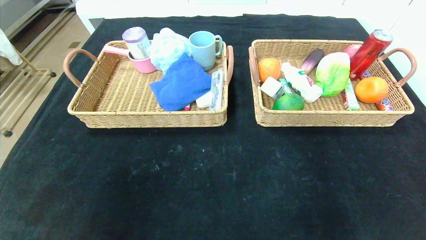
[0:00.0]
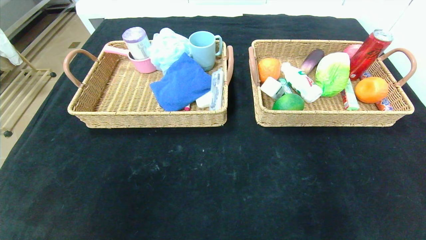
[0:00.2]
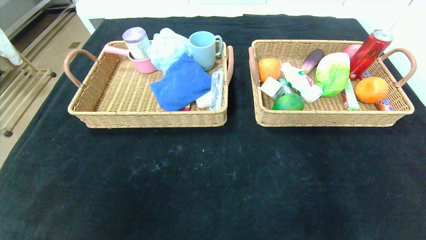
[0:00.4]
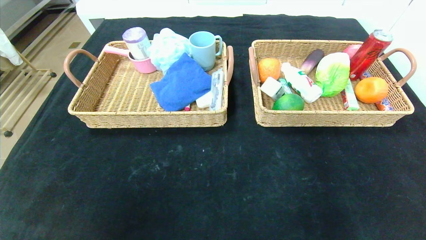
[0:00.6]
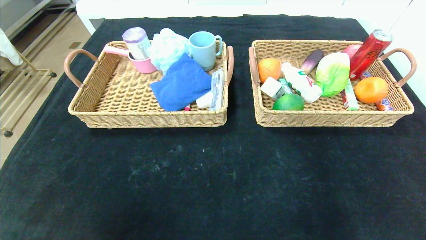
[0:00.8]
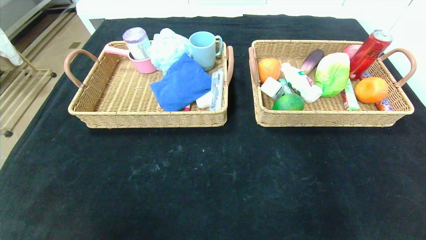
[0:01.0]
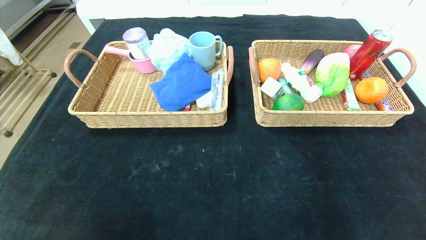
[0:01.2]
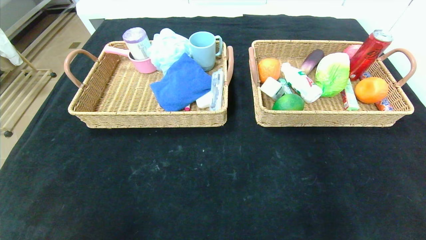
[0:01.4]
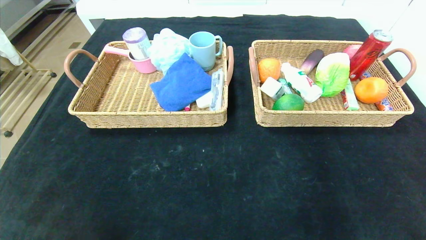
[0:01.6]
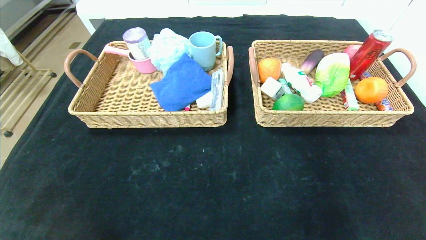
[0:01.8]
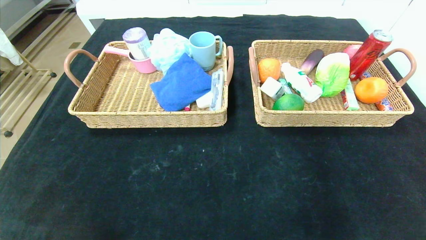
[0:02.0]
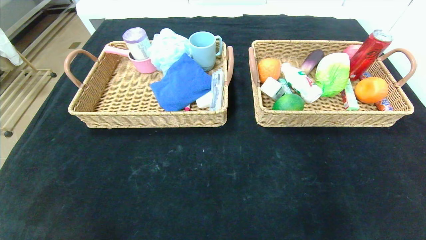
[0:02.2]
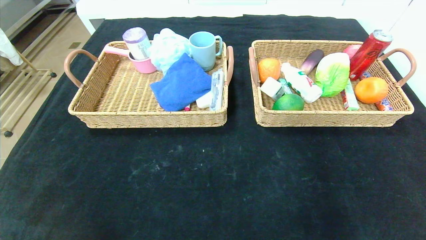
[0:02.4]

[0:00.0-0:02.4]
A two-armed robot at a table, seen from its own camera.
0:00.0 to 0:01.2: The left gripper is displaced downward and backward by roughly 10 cm.

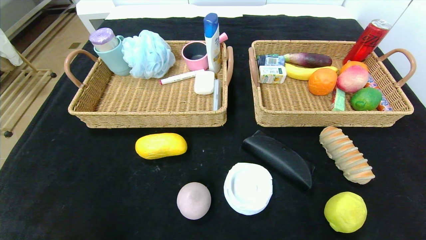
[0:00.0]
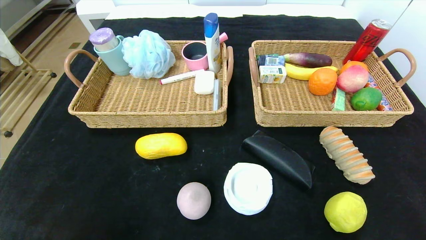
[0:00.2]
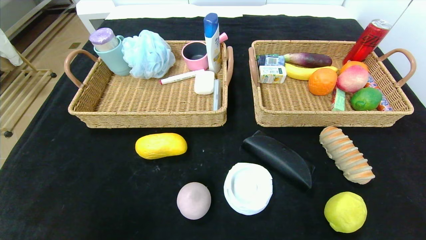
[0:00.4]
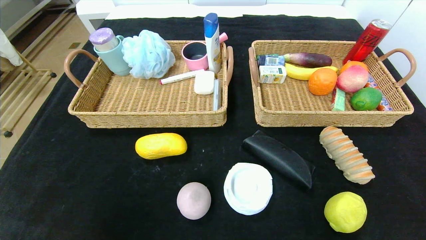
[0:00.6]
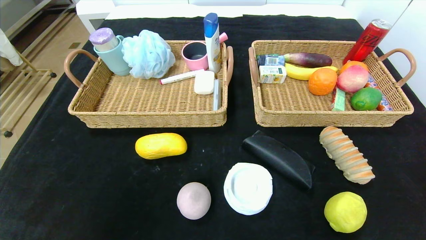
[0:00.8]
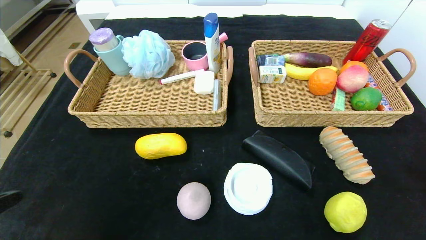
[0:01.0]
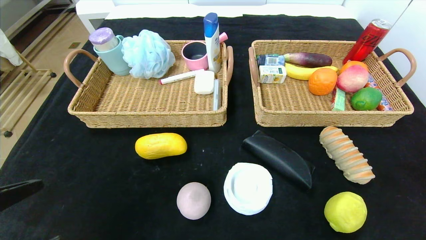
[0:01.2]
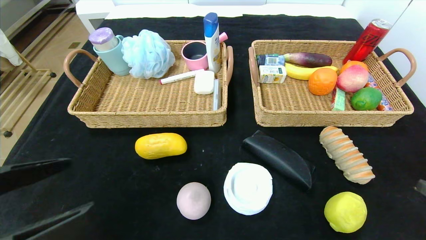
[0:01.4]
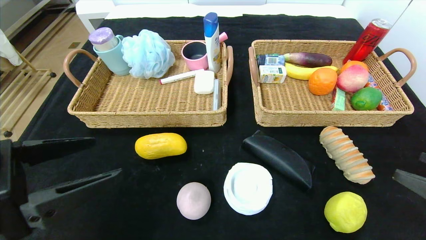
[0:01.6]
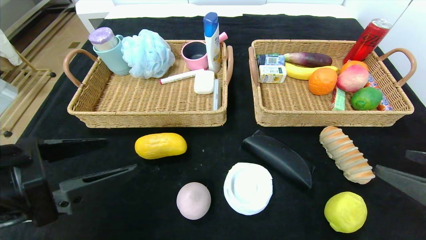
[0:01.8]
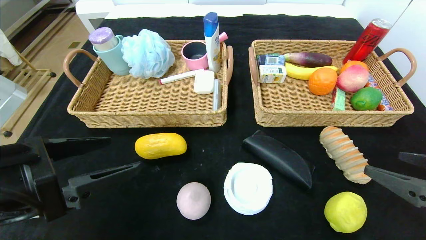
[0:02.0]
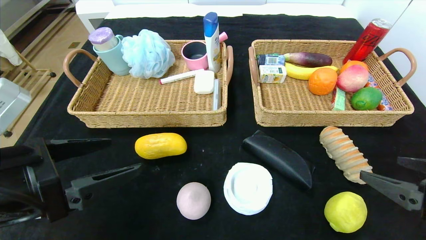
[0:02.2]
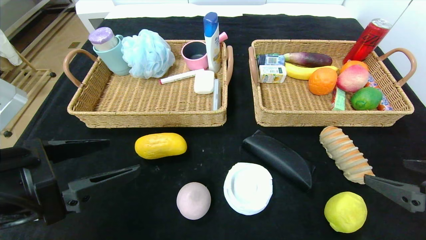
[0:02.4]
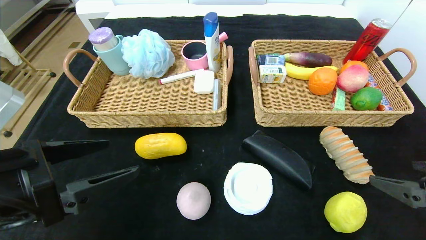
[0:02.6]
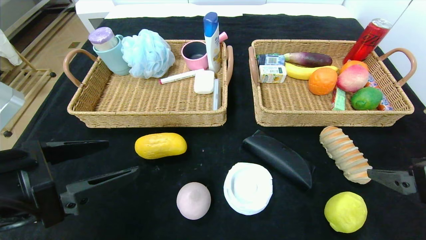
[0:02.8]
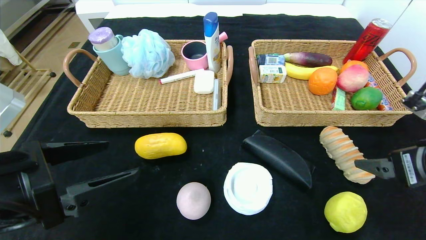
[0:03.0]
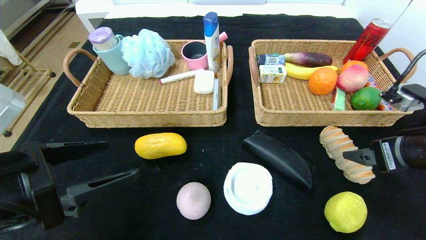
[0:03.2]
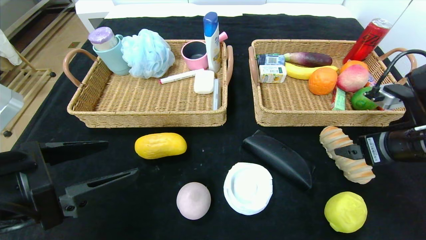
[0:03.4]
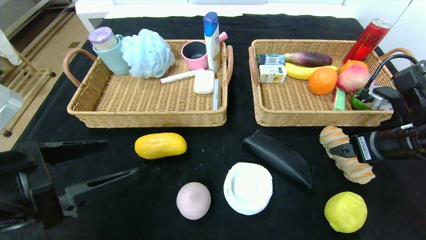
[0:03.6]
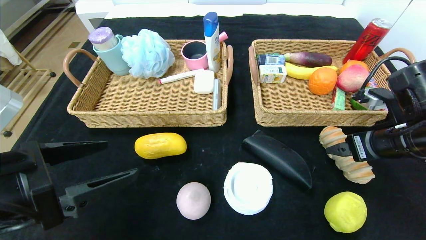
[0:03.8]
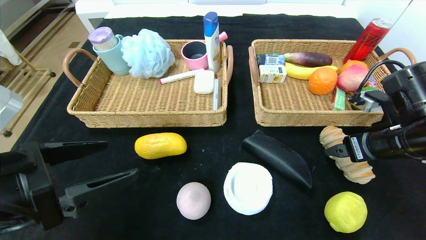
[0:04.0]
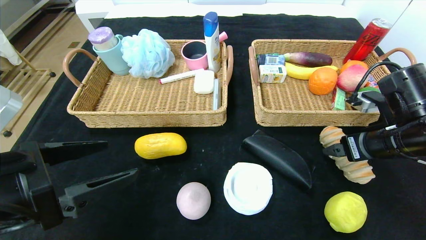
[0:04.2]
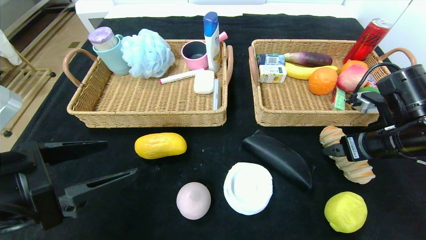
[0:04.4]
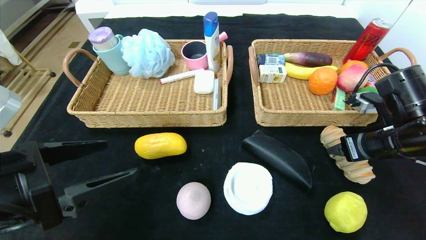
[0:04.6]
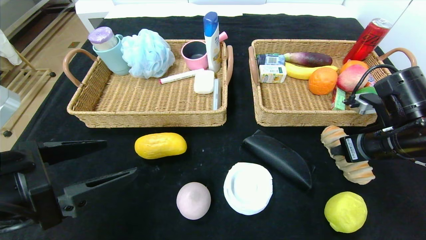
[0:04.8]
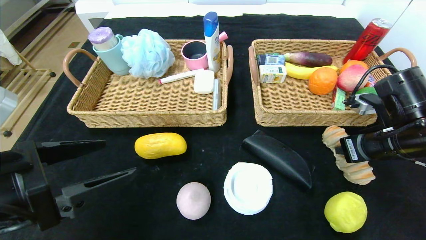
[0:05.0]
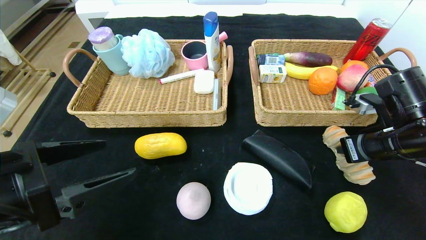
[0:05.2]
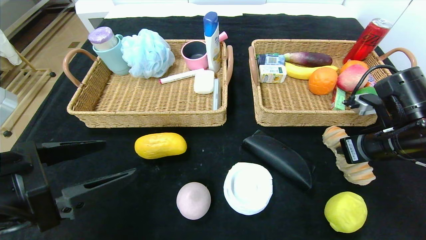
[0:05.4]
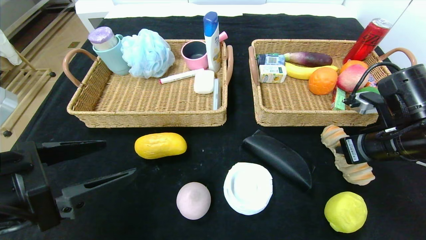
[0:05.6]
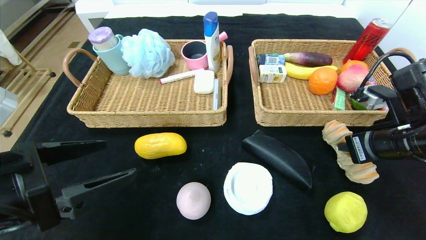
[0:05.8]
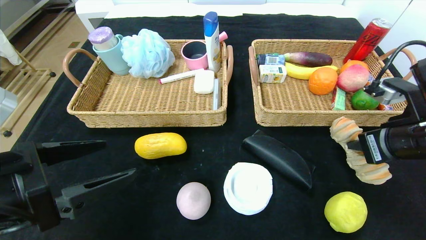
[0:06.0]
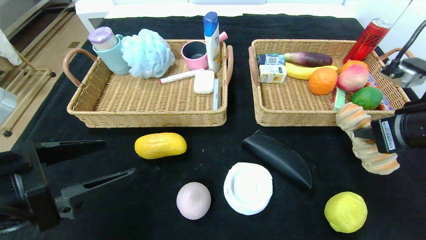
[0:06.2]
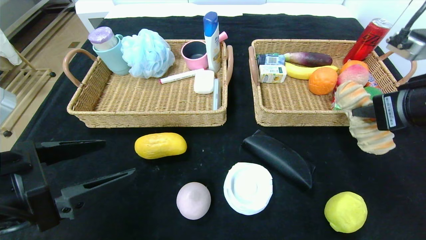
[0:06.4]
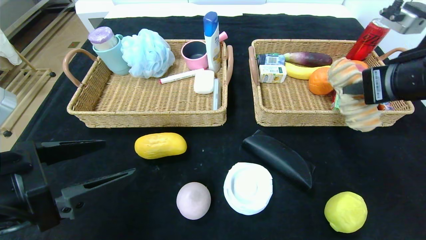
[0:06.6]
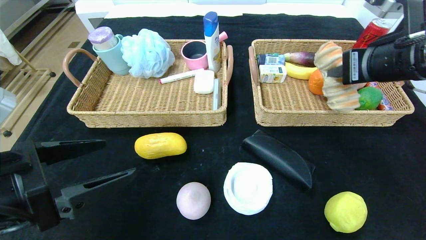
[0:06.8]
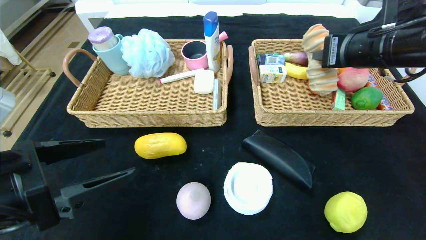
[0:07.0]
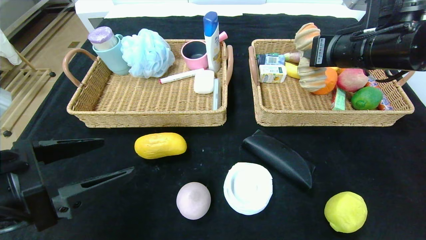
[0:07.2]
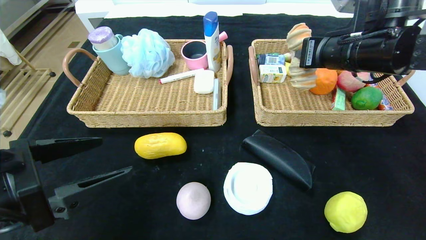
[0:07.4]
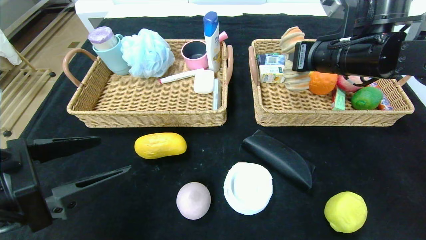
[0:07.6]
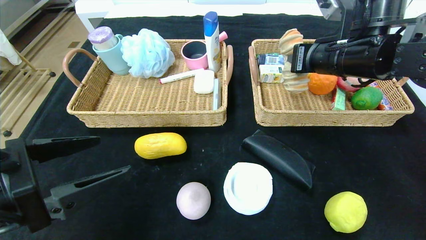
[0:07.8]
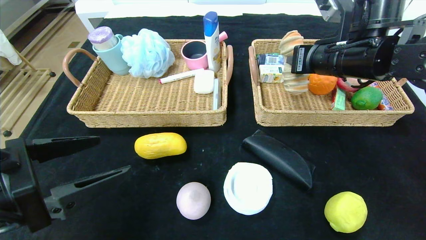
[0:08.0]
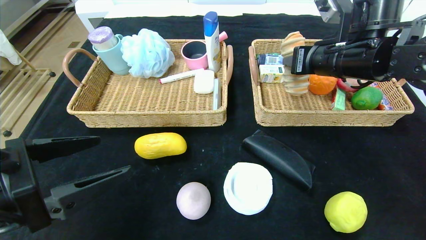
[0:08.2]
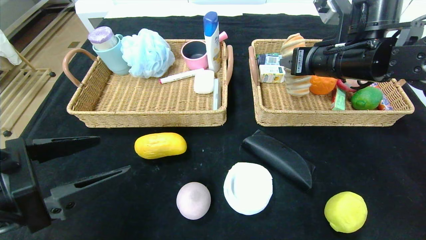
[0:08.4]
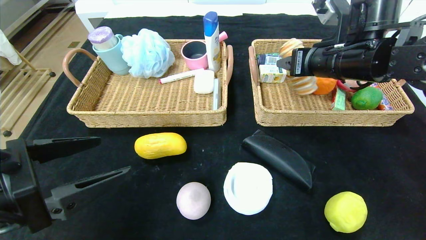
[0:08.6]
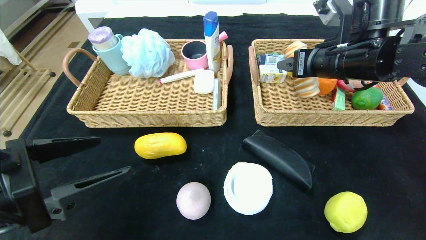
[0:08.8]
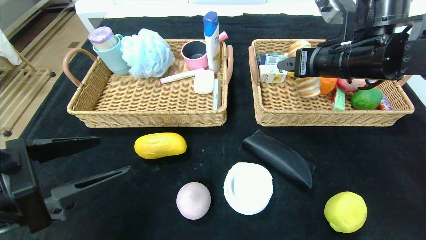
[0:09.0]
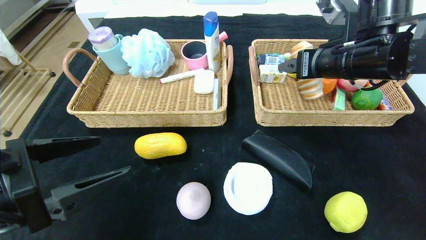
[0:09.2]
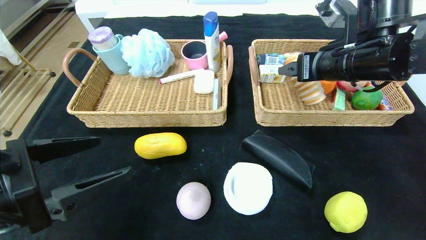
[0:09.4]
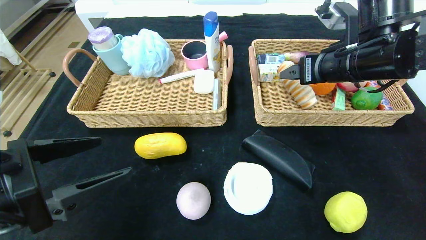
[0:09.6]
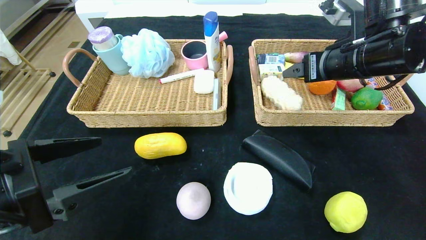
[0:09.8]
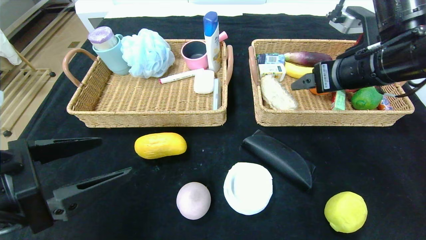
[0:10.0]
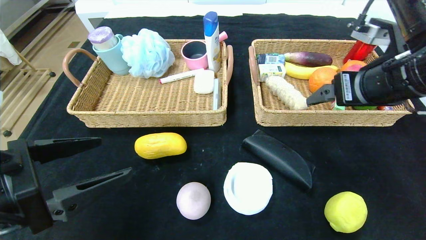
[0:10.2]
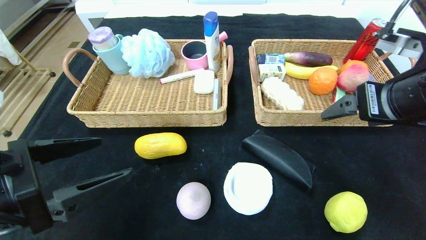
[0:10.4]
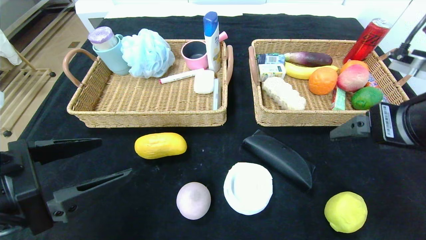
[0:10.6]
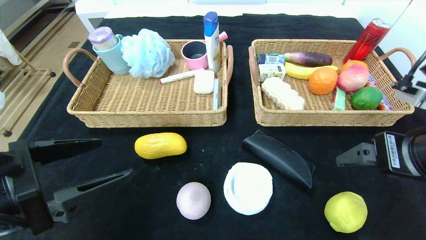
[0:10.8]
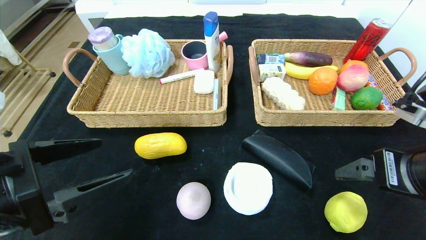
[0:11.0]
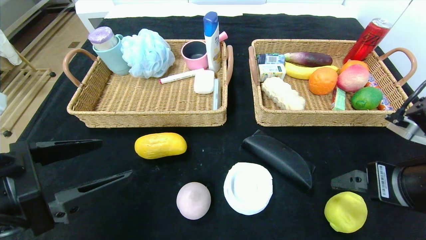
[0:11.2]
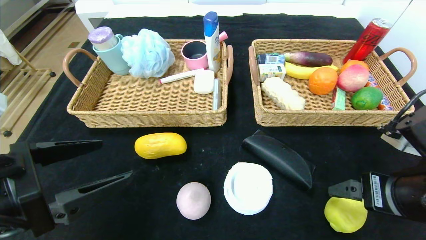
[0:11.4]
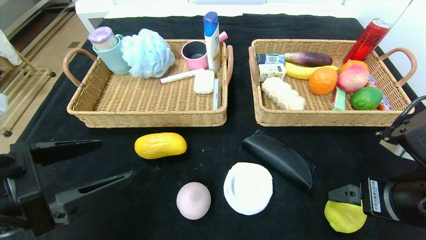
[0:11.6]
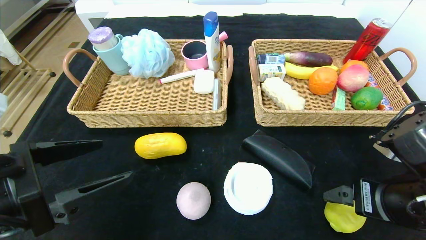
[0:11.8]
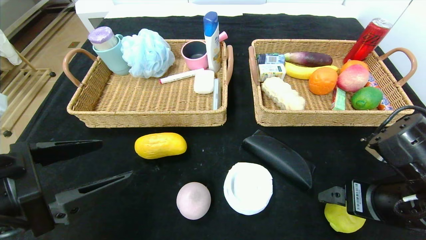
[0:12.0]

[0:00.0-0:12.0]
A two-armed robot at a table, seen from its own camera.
Step, 0:00.0 to 0:09.4: Grasp the long bread and put it in the right basket.
0:00.0 to 0:01.6: Both grippers travel together upward and forward, approximately 20 cm.
0:01.6 to 0:03.0: The right gripper is displaced forward by approximately 10 cm.
0:03.0 to 0:04.4: The right gripper goes approximately 10 cm forward.
0:04.4 to 0:06.0: The right gripper shifts by approximately 5 cm, and closes up.
0:06.0 to 0:07.6: The right gripper moves forward, to the left and upward, roughly 15 cm.
0:07.6 to 0:09.0: The right gripper opens.
0:09.0 to 0:10.4: The right gripper travels backward by about 10 cm.
0:10.4 to 0:12.0: The right gripper travels downward by some 15 cm.

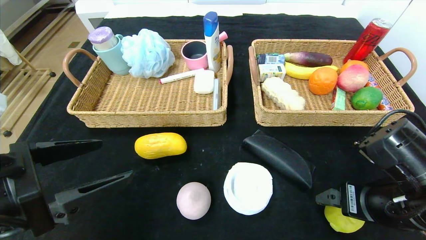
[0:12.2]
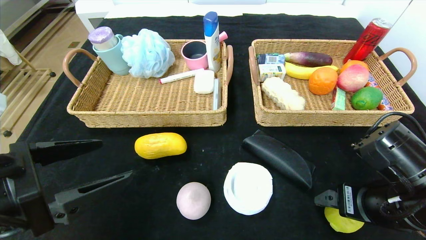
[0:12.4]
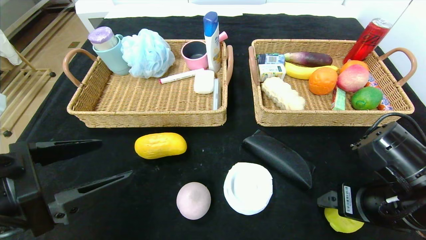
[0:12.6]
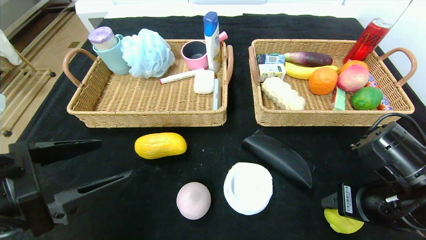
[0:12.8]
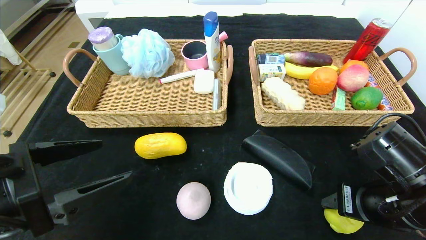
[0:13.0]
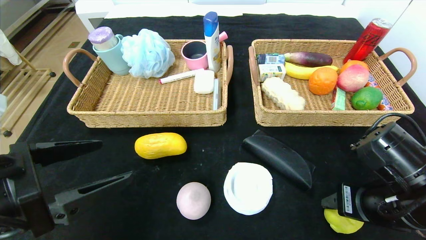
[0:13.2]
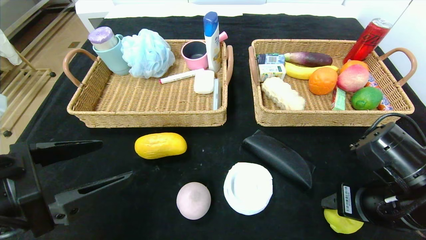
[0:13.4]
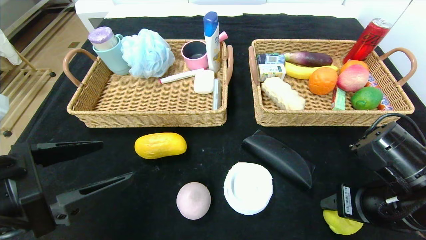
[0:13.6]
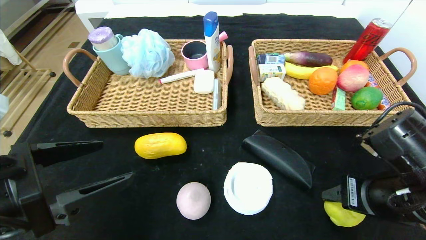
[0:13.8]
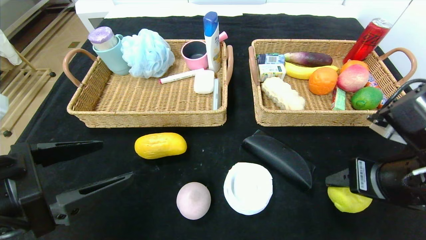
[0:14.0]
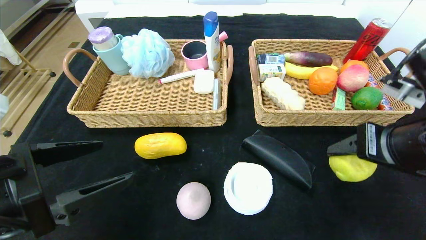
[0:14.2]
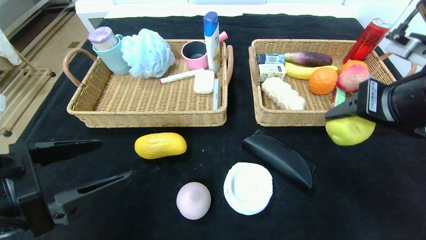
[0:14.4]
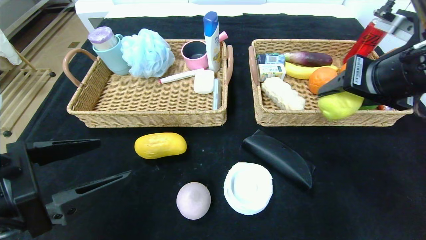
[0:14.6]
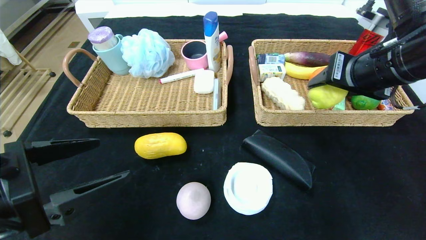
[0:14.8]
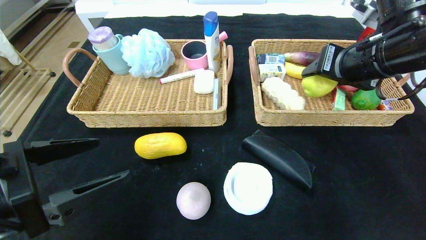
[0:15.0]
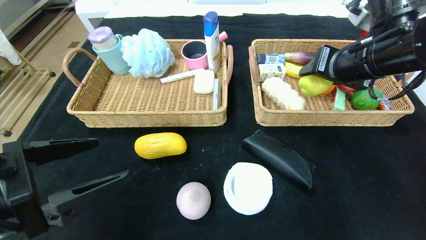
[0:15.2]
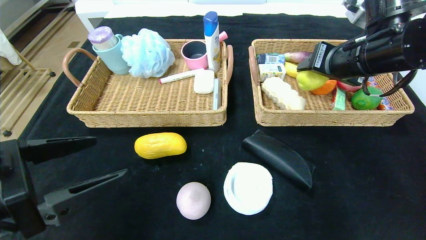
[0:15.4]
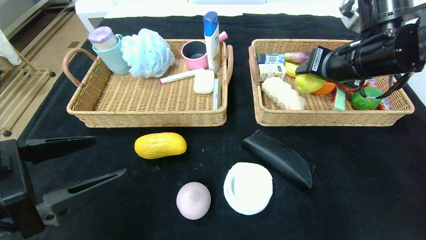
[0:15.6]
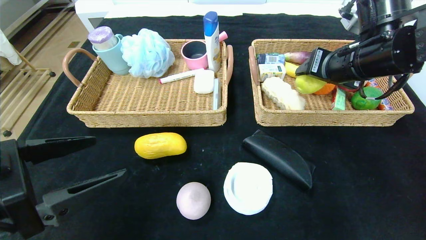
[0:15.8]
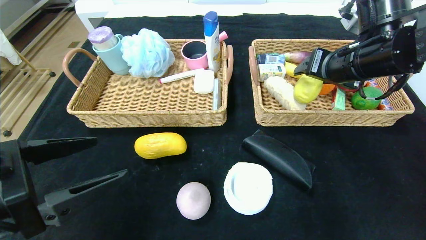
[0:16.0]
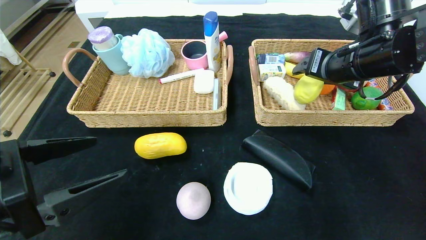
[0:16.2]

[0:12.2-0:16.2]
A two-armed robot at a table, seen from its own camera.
0:12.2 to 0:13.6: The right gripper closes up.
0:13.6 to 0:14.8: The right gripper is displaced upward and forward by roughly 20 cm.
0:14.8 to 0:16.2: The grippers move only a little.
